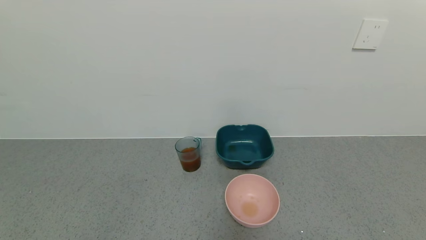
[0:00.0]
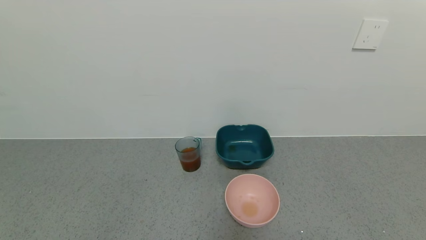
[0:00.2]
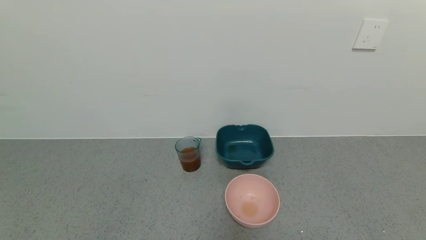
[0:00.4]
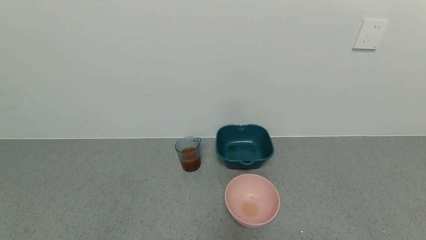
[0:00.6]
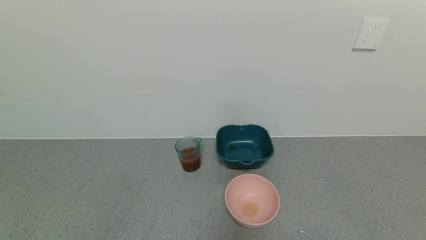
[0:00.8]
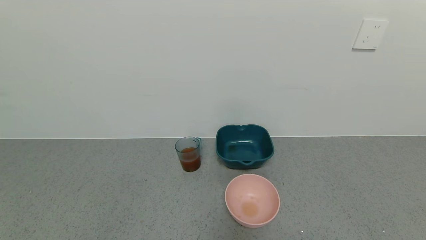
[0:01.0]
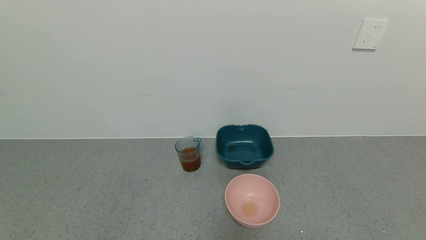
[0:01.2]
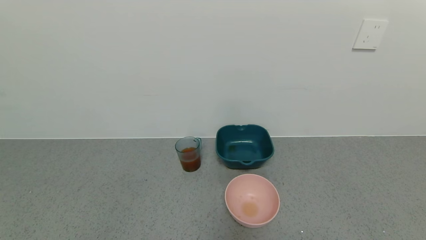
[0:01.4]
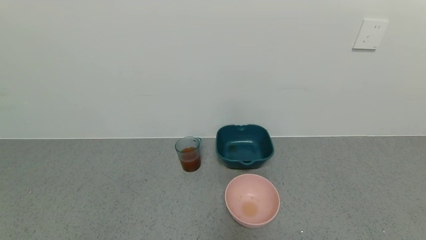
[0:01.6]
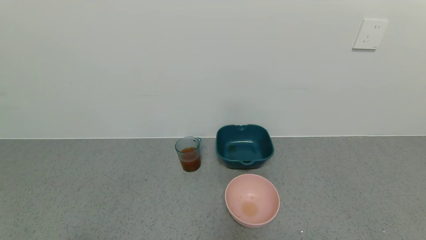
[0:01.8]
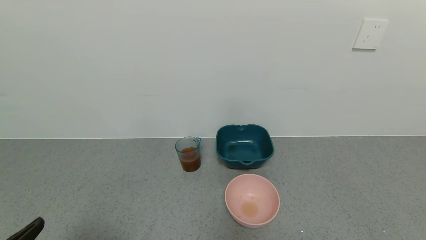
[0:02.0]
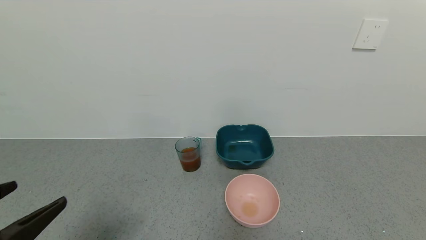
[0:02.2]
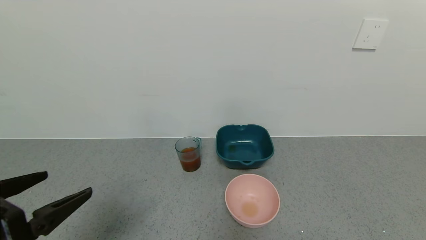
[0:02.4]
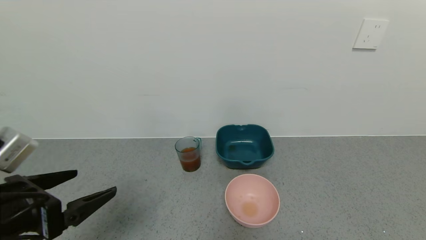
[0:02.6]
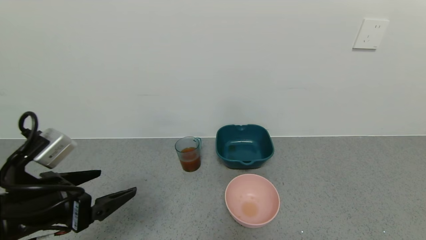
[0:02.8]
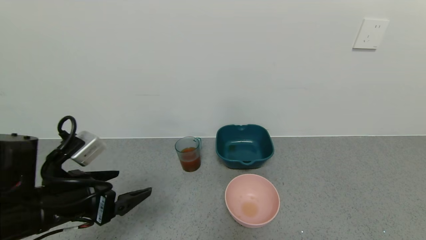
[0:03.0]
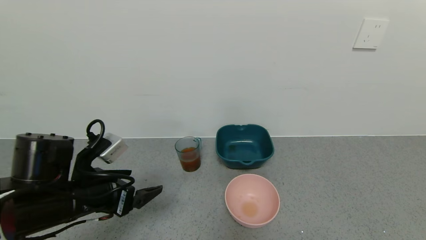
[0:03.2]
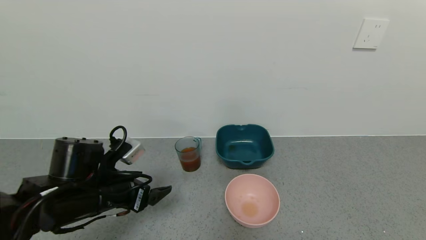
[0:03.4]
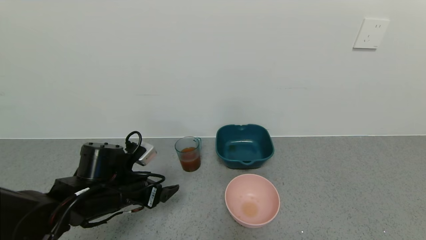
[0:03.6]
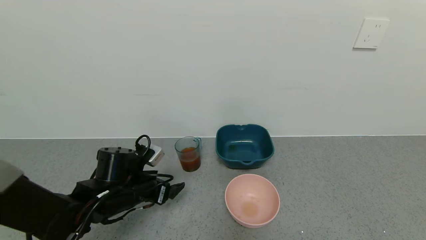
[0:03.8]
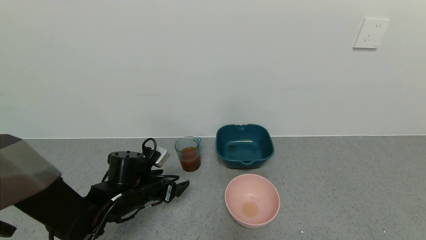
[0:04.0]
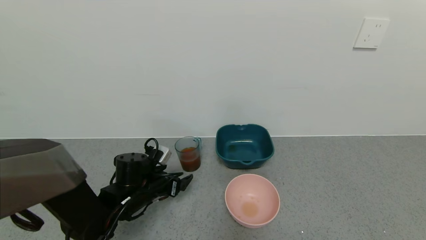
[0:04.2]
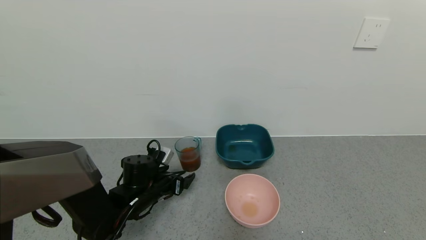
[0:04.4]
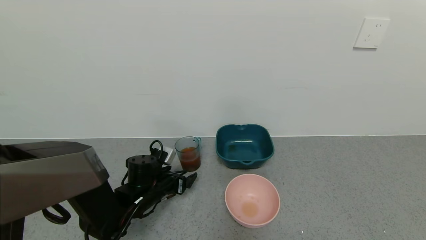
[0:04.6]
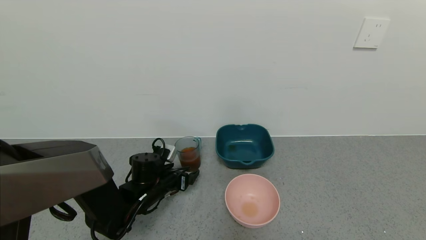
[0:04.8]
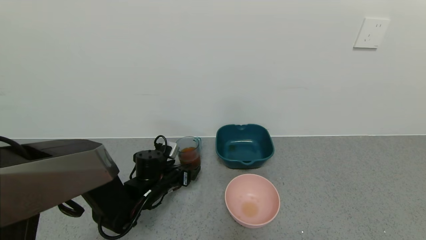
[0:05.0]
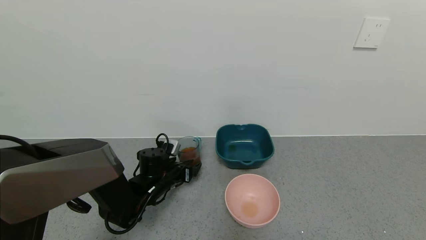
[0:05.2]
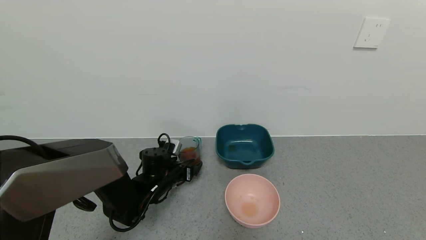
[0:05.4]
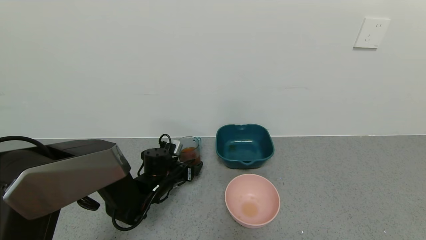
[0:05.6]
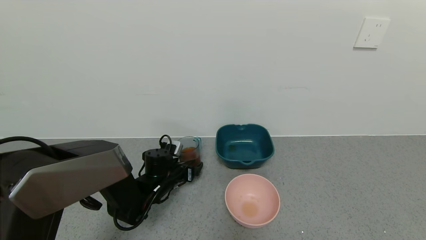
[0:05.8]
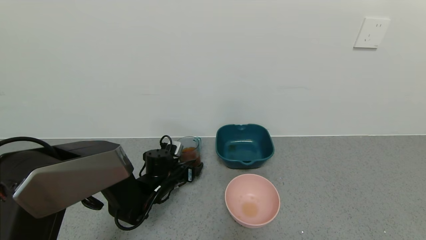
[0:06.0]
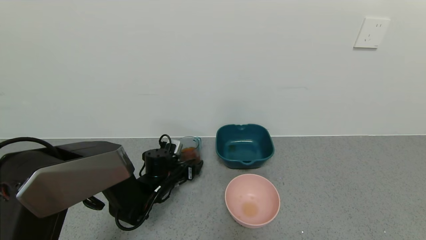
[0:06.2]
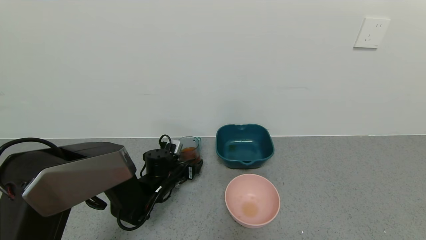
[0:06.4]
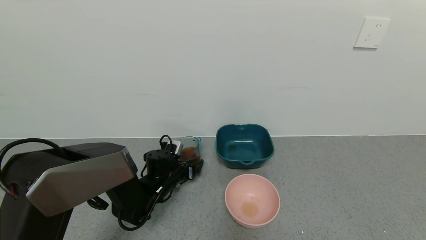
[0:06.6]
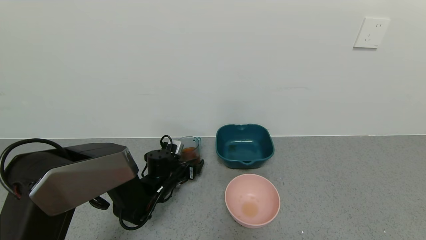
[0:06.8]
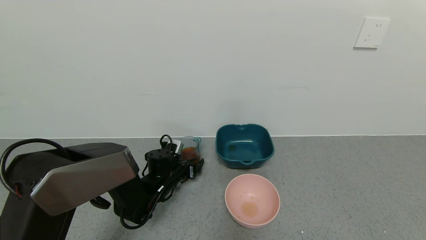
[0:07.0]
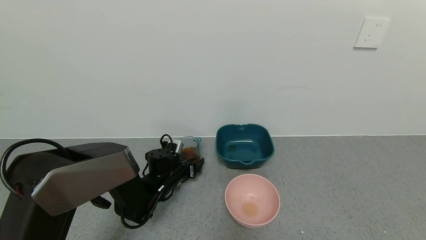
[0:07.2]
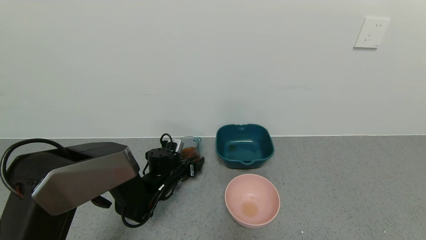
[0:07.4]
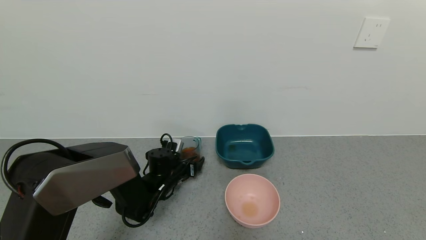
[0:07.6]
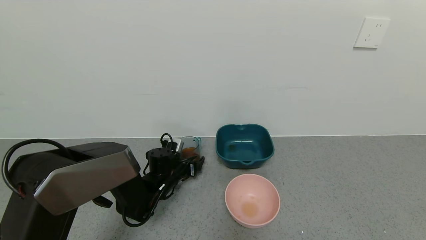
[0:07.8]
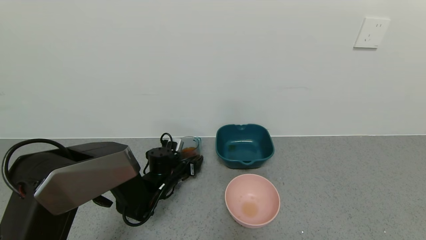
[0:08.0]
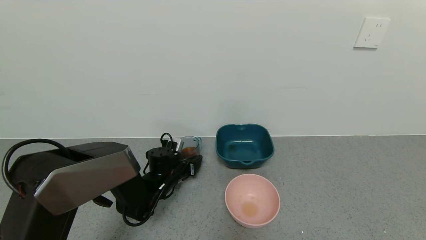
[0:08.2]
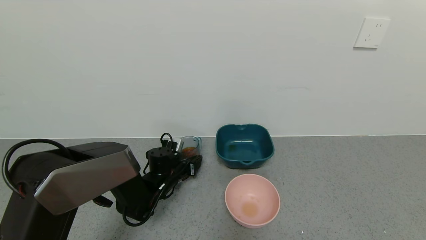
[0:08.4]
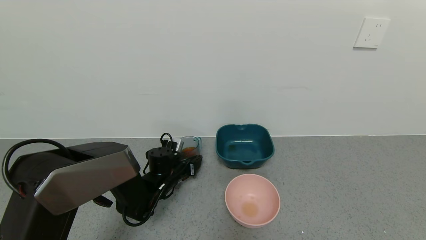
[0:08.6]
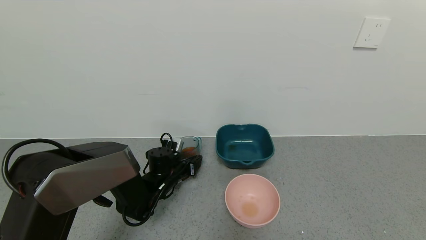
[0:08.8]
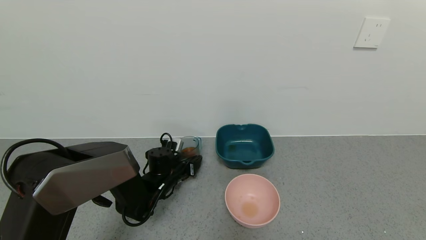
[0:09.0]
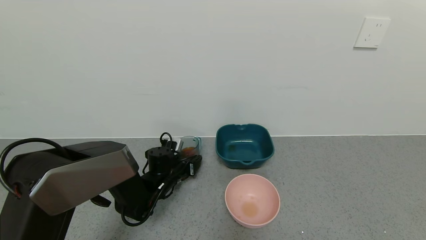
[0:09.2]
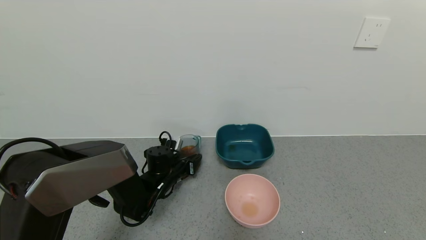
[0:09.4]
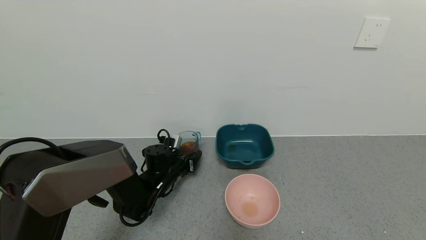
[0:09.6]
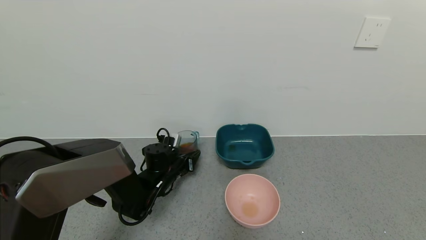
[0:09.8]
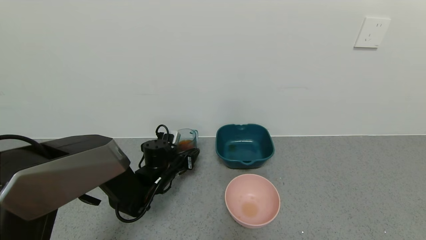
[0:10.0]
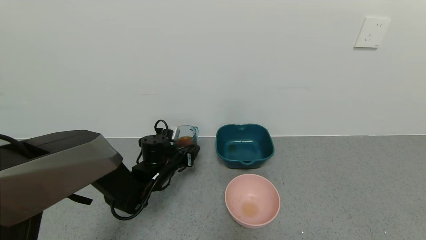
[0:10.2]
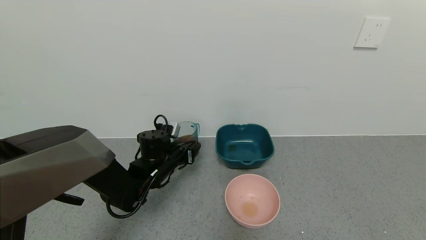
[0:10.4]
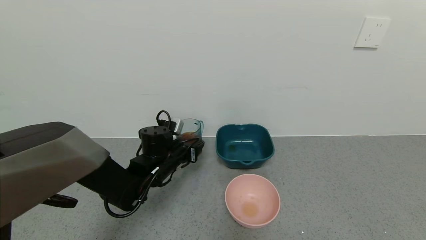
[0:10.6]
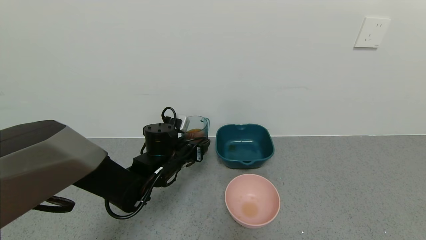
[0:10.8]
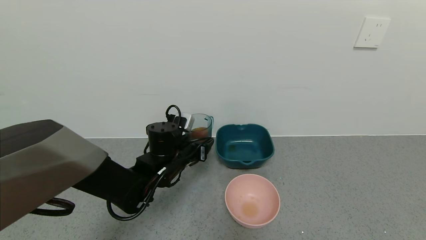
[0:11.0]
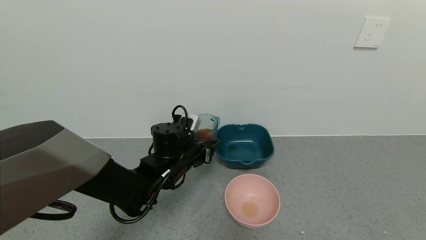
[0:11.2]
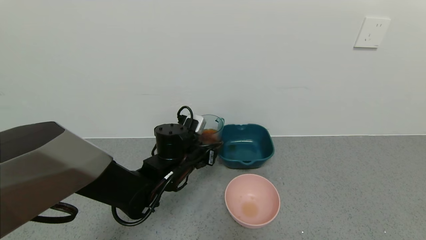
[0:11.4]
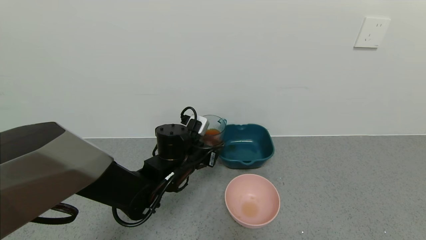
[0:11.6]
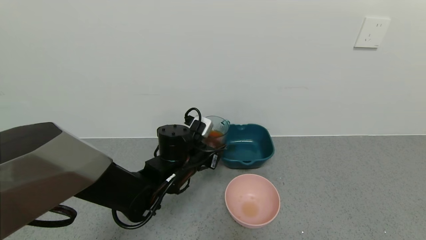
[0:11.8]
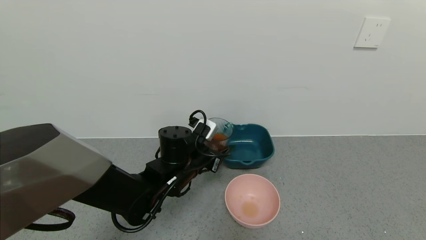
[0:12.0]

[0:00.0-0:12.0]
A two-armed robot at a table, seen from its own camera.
Task of the whole recording: use a gripper to pick up the cup and pour the liquid into a bowl or tray.
Step, 0:00.0 to 0:10.6: Pick up blue cup filled with tea with left gripper.
0:01.6 to 0:03.0: The left gripper goes roughly 20 cm forward.
0:03.0 to 0:04.4: The left gripper goes about 20 cm downward, forward and to the right.
0:04.4 to 0:06.0: The left gripper is displaced forward by approximately 5 cm.
0:06.0 to 0:07.6: The grippers move only a little.
0:09.0 to 0:10.4: The left gripper is displaced upward by approximately 5 cm.
0:10.4 to 0:12.0: The left gripper shifts approximately 5 cm to the right.

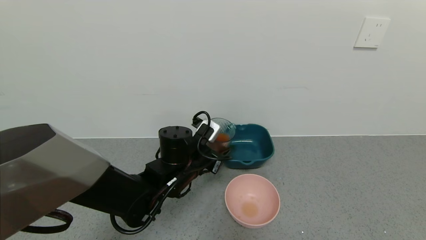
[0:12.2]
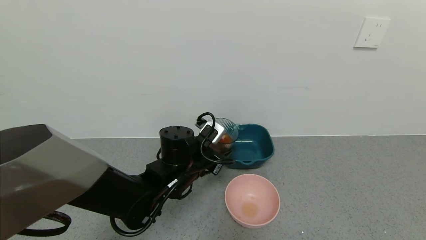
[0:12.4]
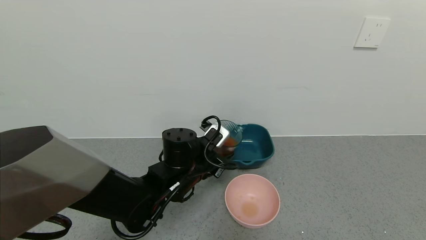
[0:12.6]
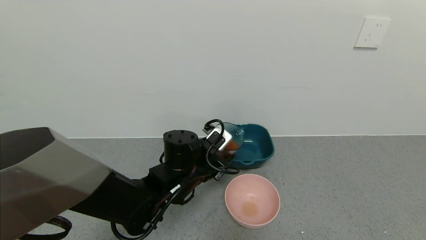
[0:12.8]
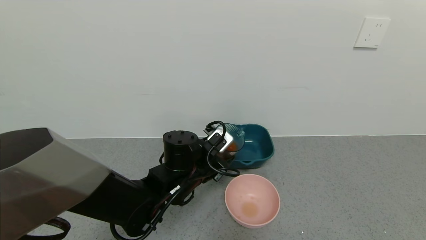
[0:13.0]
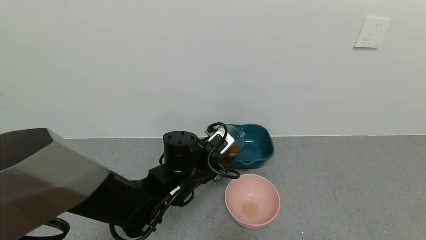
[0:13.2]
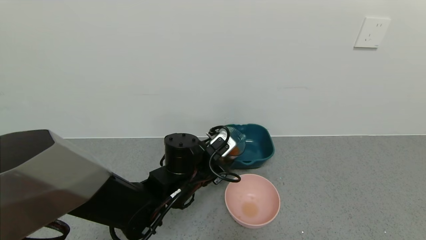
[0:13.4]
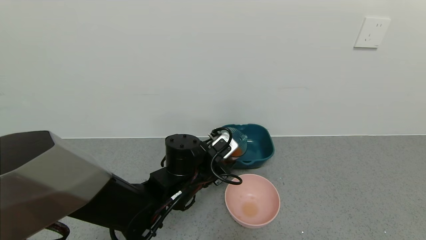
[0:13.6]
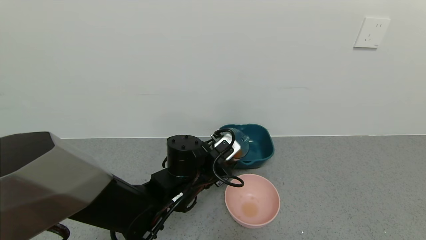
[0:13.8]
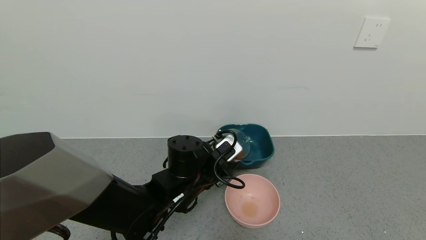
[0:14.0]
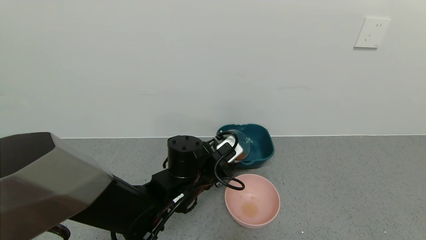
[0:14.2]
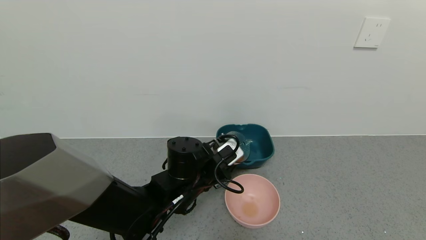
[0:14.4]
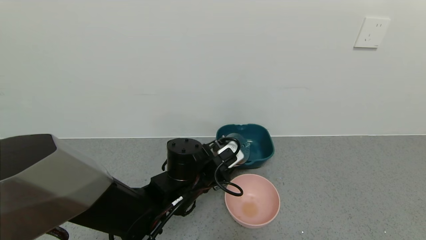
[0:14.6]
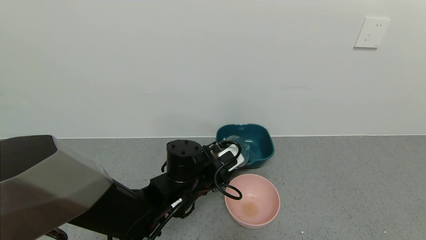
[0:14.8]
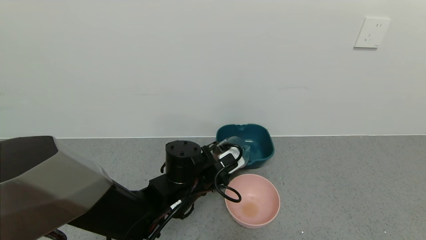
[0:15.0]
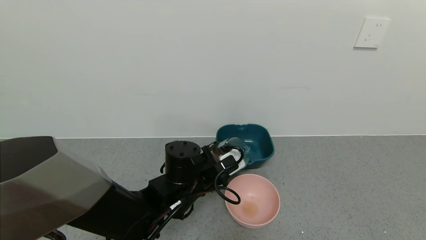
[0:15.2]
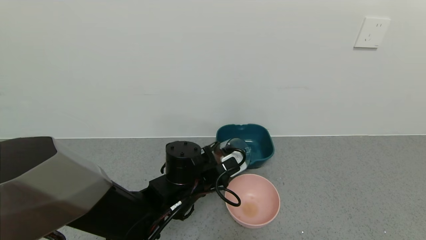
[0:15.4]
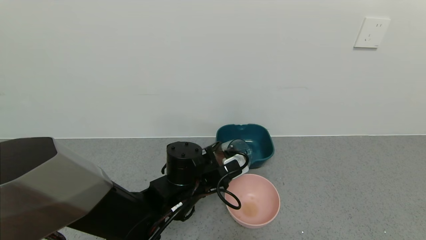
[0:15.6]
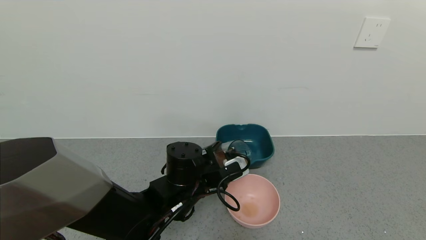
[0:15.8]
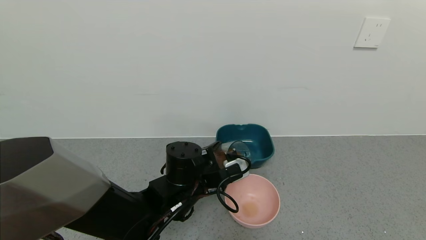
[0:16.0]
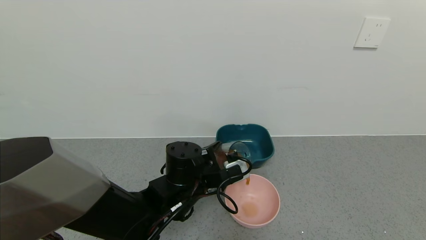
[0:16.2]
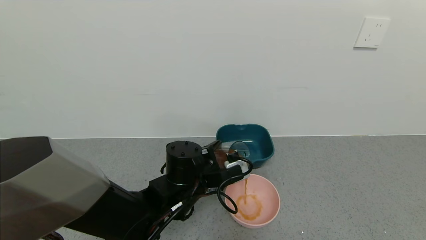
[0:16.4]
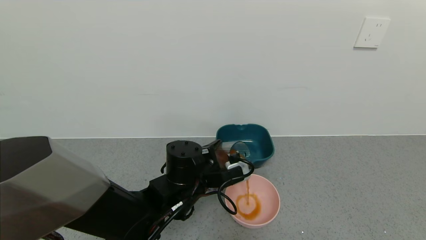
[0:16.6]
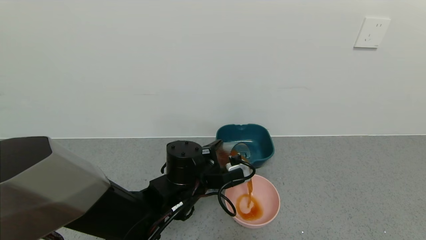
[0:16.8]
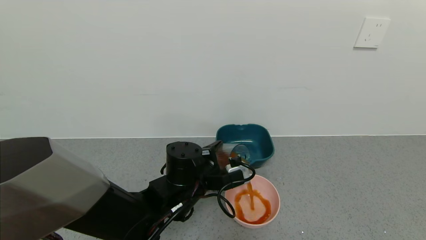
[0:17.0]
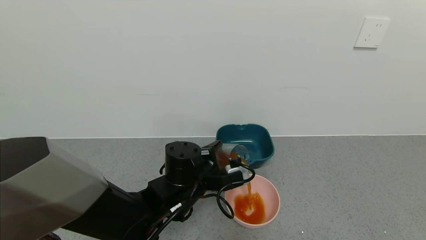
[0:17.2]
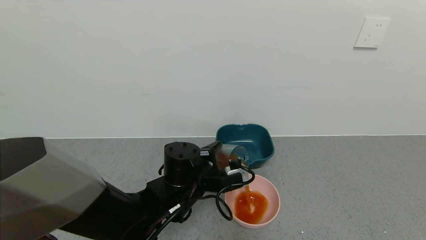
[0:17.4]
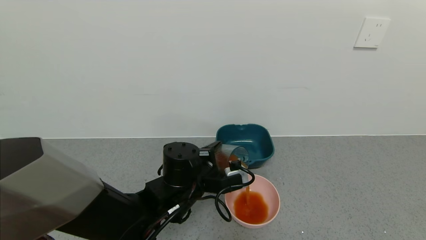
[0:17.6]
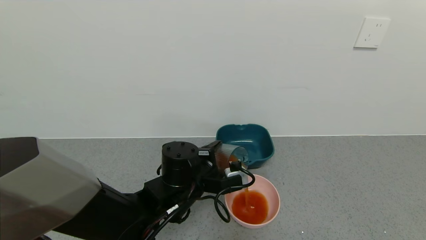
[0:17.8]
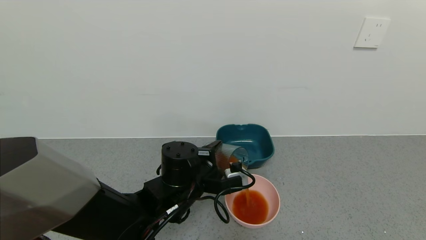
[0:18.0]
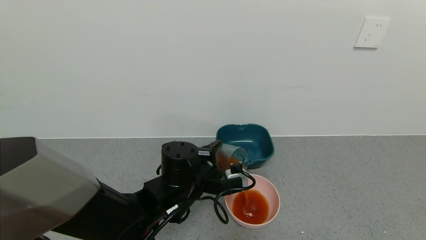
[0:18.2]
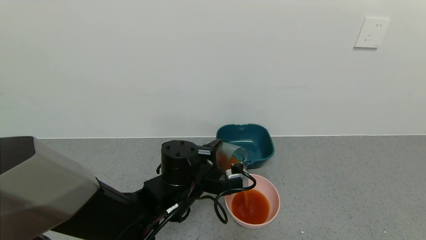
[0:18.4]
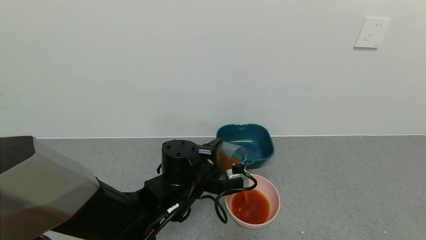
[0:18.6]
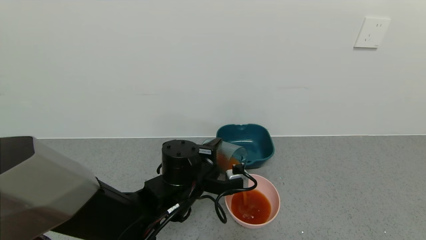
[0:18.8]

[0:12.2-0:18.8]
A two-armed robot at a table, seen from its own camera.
Task of the whole recording: use a gripper to pick up the cup and pour the liquid into a bowl or tray.
0:12.2 to 0:13.8: There are only small adjustments of the grippers.
0:13.8 to 0:15.4: The grippers stay close to where they were, moving slightly.
0:15.4 to 0:17.2: The grippers make only small movements.
0:17.2 to 0:18.8: The grippers make only small movements.
